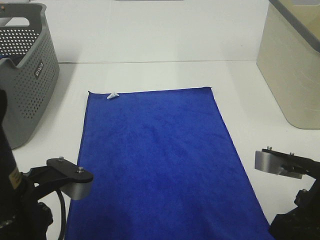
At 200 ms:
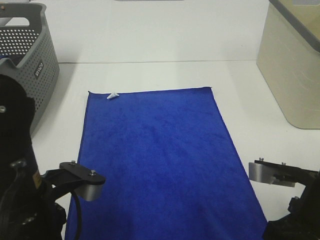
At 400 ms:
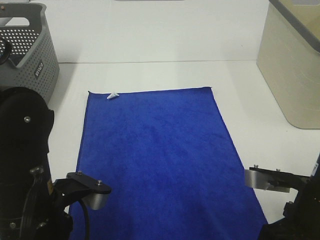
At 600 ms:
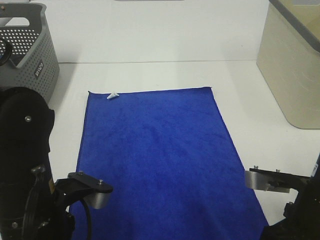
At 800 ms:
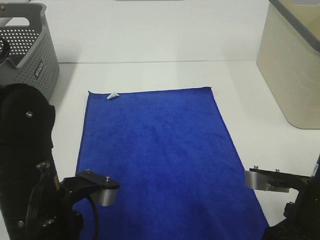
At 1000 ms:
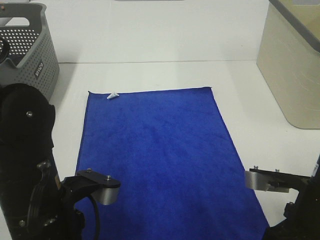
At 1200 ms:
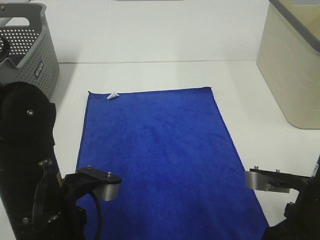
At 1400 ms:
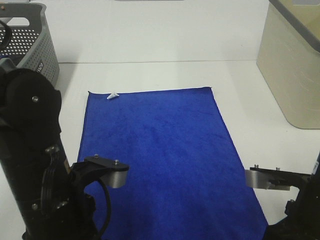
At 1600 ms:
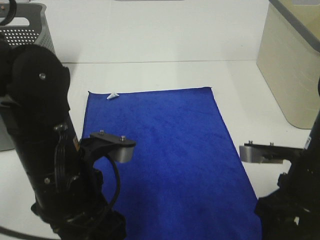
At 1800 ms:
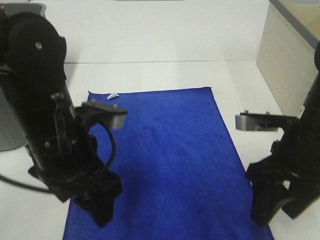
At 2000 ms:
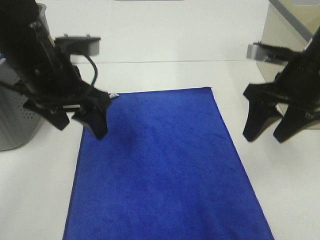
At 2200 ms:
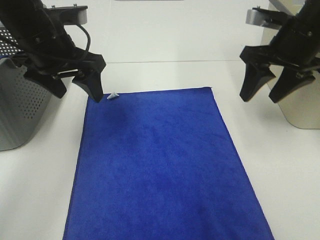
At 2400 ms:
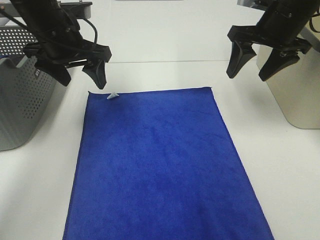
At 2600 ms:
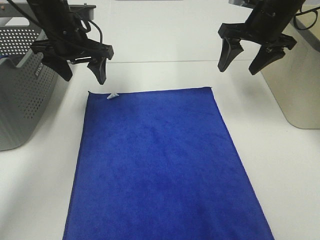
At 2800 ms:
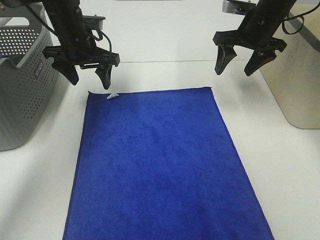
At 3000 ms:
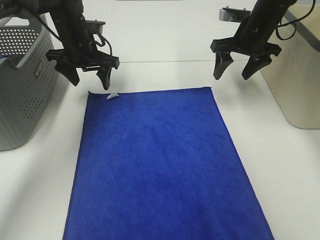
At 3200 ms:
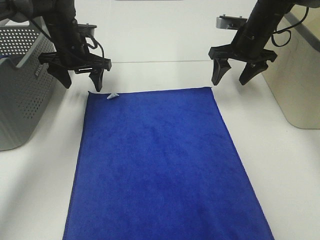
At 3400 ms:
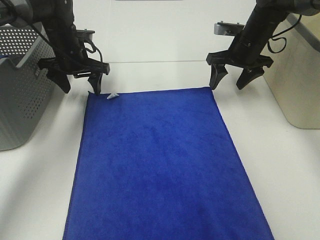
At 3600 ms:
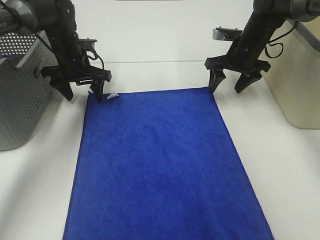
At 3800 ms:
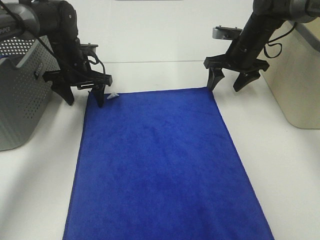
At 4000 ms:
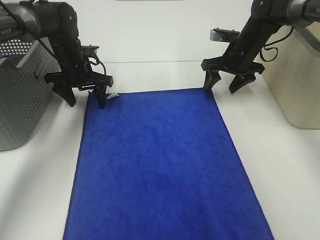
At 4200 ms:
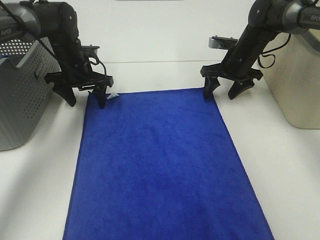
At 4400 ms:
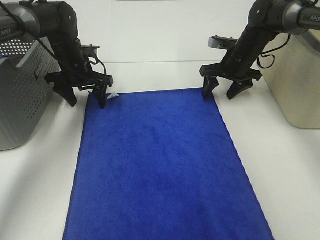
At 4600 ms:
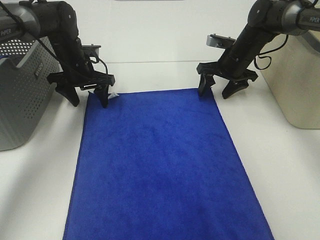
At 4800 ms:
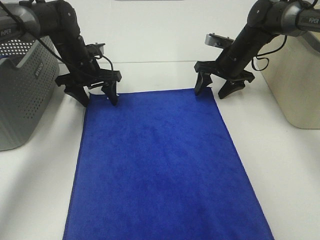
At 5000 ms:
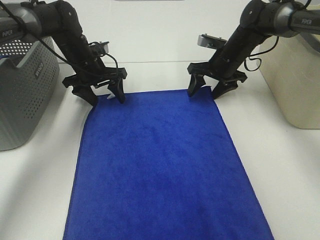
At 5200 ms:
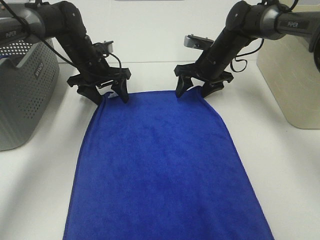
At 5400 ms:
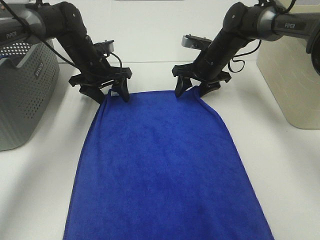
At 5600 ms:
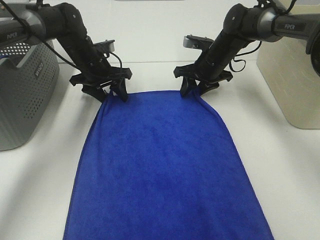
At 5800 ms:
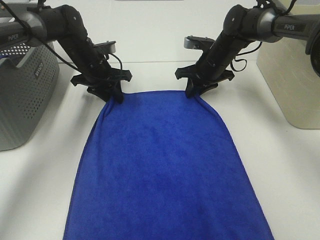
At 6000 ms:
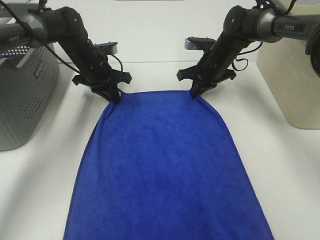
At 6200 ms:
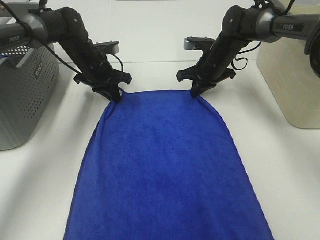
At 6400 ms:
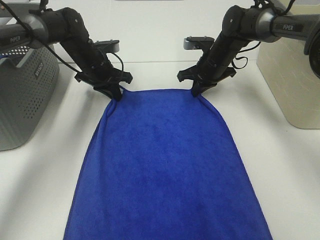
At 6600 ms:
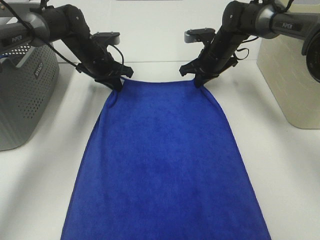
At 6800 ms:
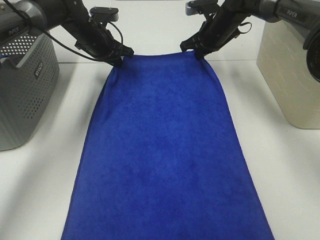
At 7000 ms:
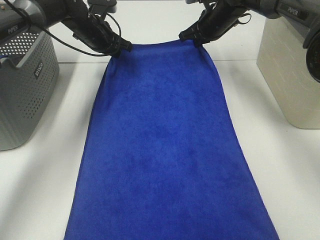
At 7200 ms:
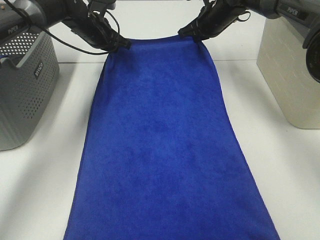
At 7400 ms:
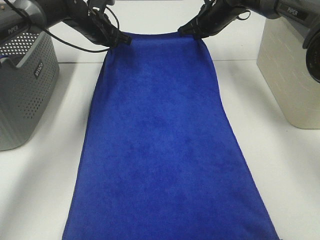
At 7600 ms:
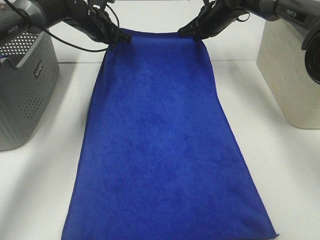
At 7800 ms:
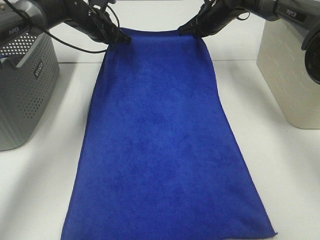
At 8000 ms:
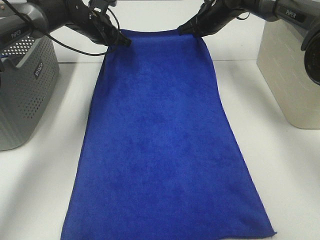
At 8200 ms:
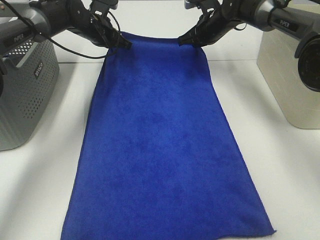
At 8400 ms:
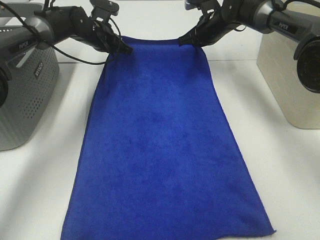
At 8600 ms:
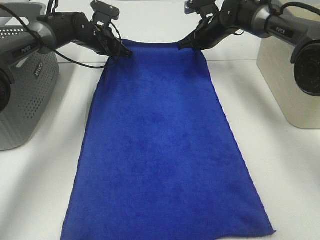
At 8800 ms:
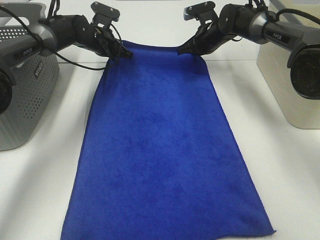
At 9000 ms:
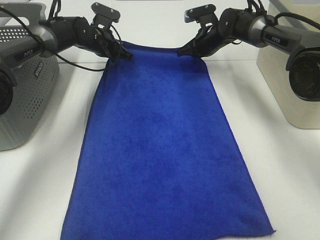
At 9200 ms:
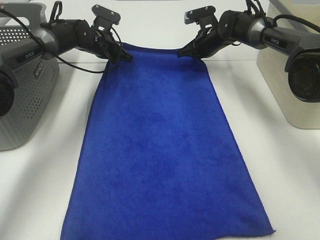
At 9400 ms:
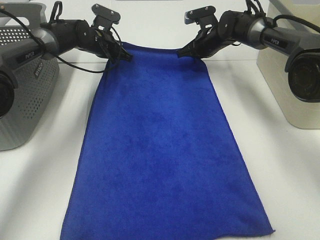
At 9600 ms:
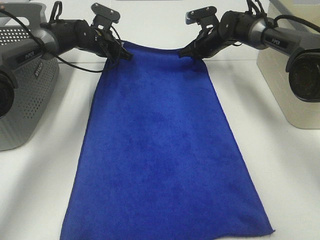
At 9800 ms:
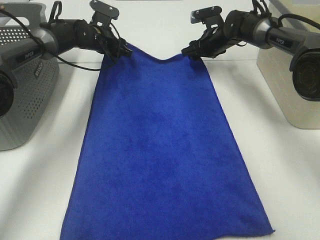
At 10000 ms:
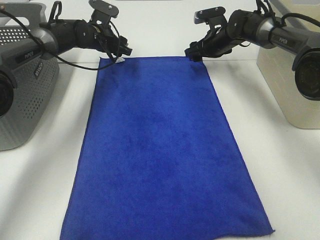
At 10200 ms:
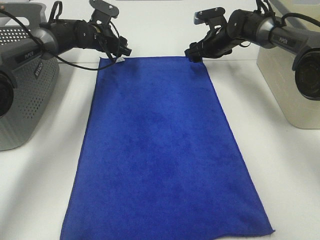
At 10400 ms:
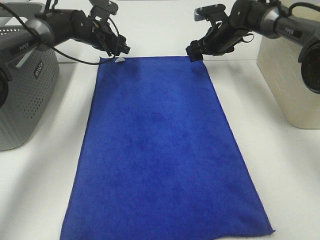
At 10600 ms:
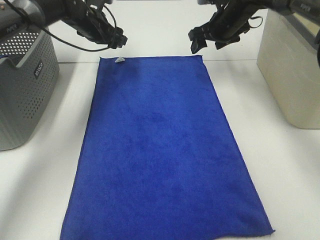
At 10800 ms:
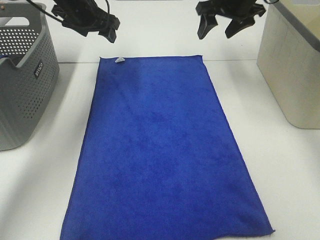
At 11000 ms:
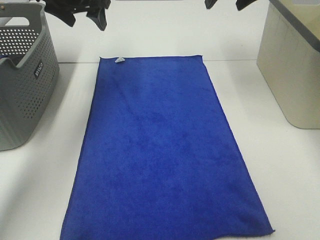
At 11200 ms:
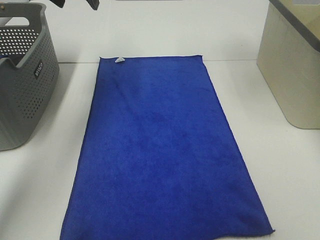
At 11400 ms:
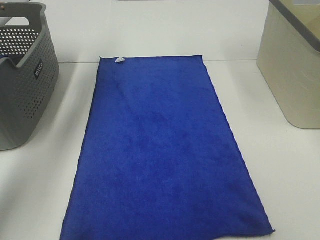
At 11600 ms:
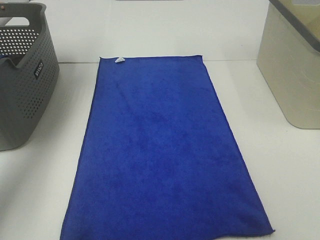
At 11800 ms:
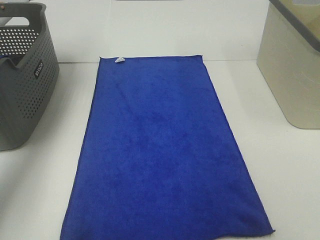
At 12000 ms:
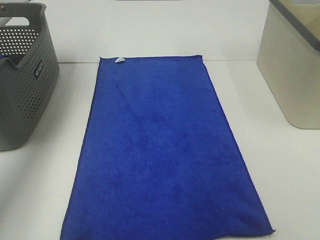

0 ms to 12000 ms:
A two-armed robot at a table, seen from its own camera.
Task of the whole recording: Remove the towel and place it.
Step, 0 ms to 3600 ms: Left hand:adjust the blue towel.
Step, 0 ms to 3600 ms: Right hand:adjust the blue towel.
0 ms to 1600 ms: The right gripper opens its fingers, while the left gripper moves some 5 cm, and opens its fingers.
1600 ms to 3000 ms: Both grippers move forward, about 30 cm.
3000 ms to 4400 ms: The grippers both shift downward by about 5 cm.
4400 ms to 6000 ms: The right gripper is displaced to the left by some 5 cm, and closes up, while the left gripper closes its fingers.
6000 ms to 7600 ms: Both grippers move upward and forward, some 10 cm.
7600 ms to 9000 ms: The grippers both shift downward by about 5 cm.
9000 ms to 10400 ms: The left gripper opens its fingers; the right gripper opens its fingers.
10400 ms to 12000 ms: The right gripper heads upward and backward, covering approximately 35 cm, while the left gripper shifts some 30 cm upward, to the left and backward.

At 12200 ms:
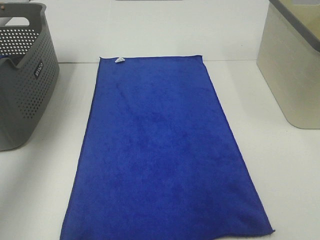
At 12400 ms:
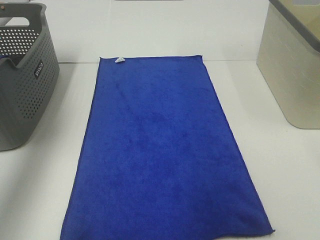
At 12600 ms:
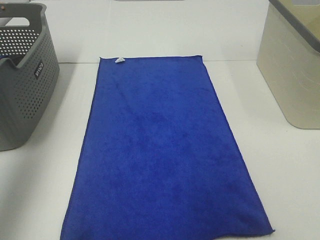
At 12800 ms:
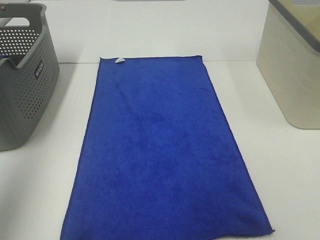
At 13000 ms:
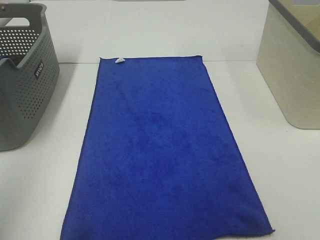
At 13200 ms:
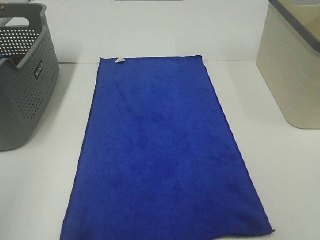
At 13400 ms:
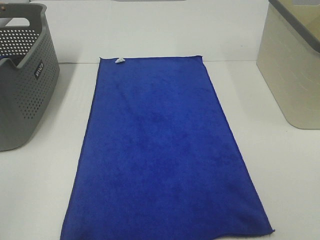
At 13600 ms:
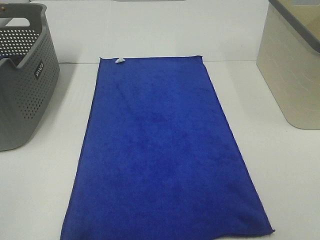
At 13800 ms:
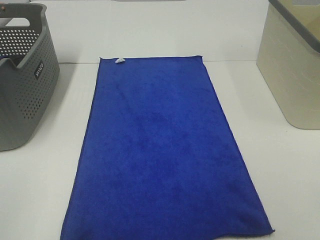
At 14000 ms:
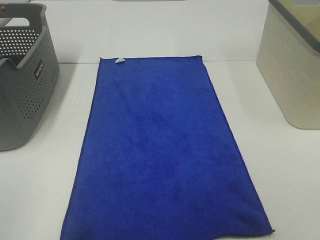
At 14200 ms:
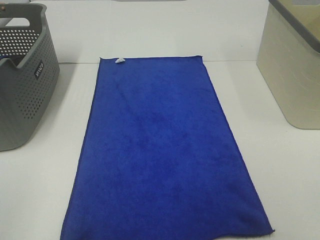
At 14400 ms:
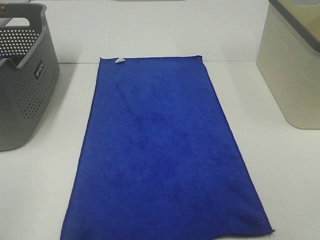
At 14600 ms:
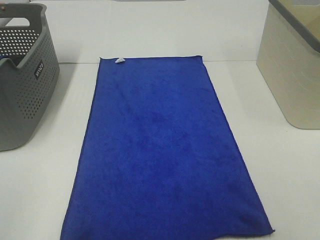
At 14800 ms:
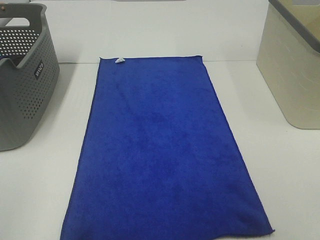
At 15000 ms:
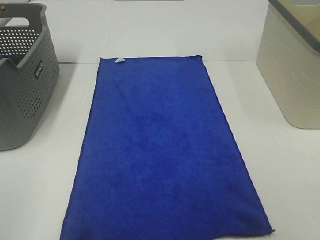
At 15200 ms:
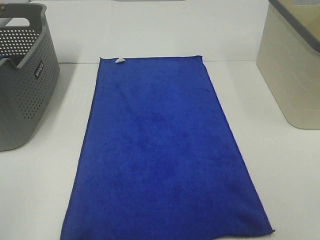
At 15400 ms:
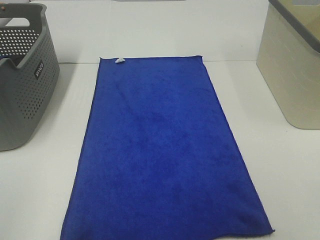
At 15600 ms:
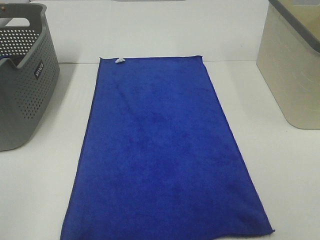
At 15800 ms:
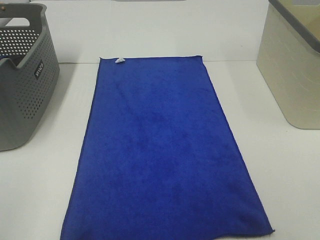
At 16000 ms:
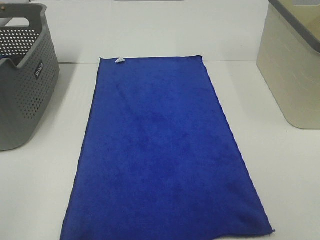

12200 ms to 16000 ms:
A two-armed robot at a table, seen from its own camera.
Task of the whole recording: Remove the towel and place it.
12200 ms to 13400 ms: The left gripper goes some 40 cm backward.
14800 ms to 16000 ms: Both grippers stay about where they are.

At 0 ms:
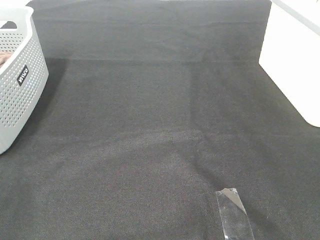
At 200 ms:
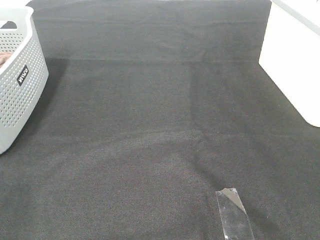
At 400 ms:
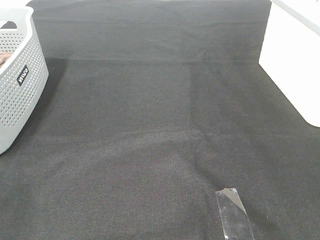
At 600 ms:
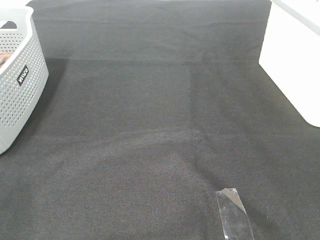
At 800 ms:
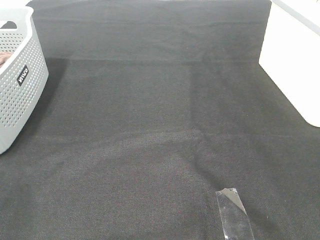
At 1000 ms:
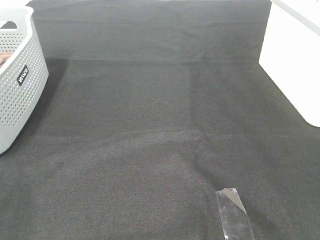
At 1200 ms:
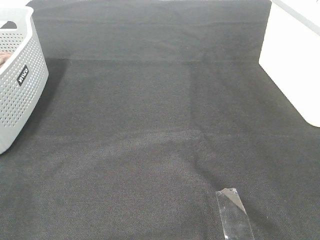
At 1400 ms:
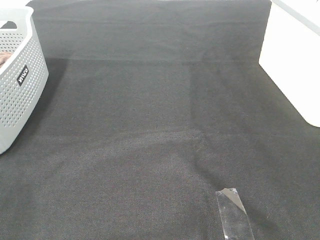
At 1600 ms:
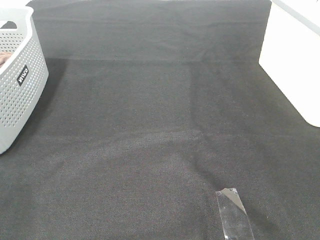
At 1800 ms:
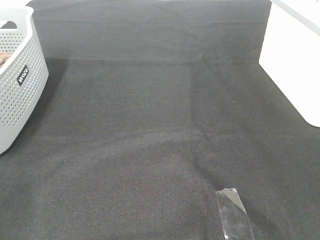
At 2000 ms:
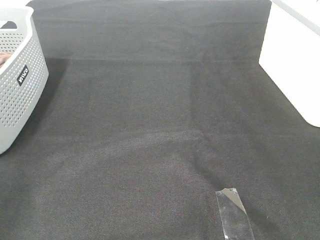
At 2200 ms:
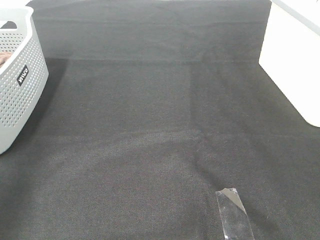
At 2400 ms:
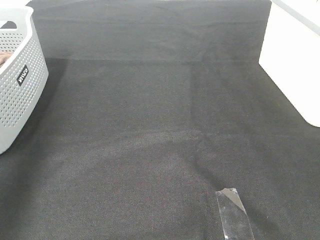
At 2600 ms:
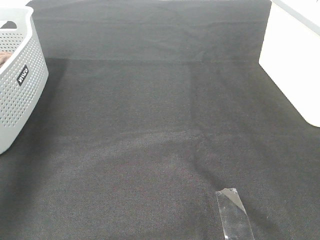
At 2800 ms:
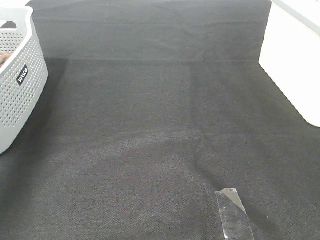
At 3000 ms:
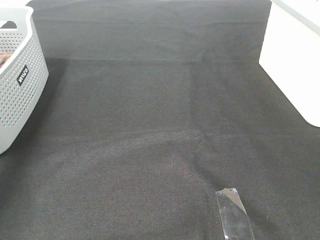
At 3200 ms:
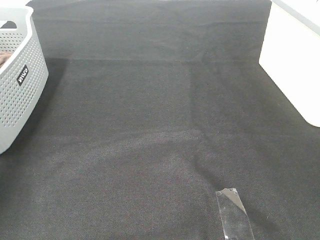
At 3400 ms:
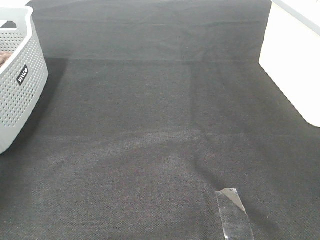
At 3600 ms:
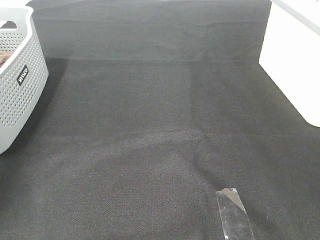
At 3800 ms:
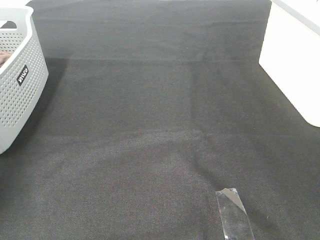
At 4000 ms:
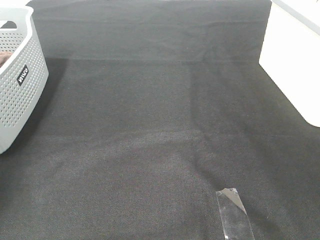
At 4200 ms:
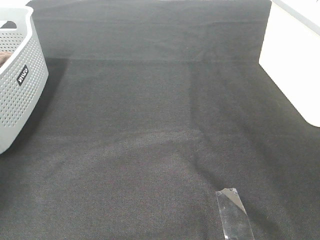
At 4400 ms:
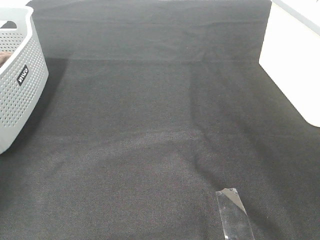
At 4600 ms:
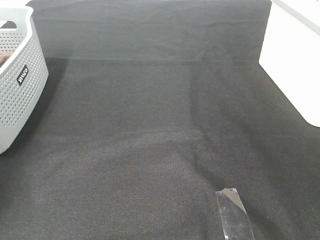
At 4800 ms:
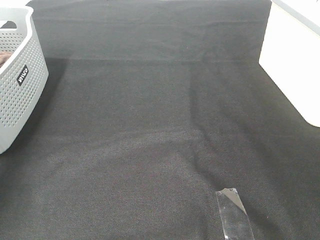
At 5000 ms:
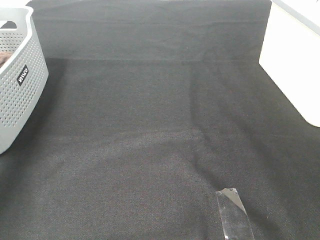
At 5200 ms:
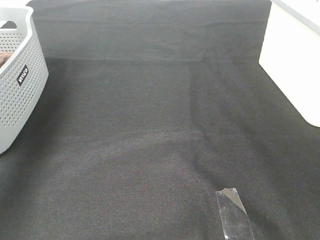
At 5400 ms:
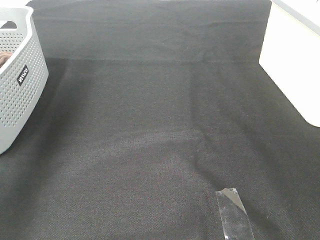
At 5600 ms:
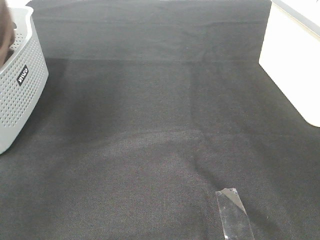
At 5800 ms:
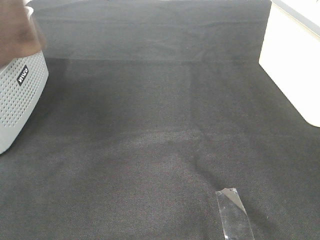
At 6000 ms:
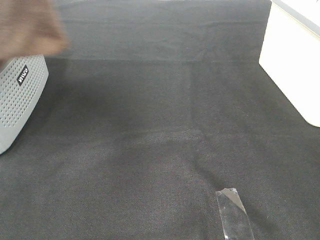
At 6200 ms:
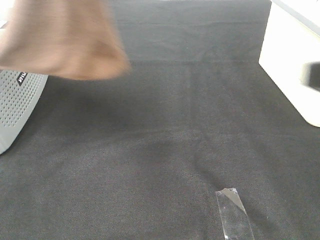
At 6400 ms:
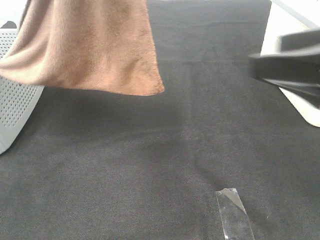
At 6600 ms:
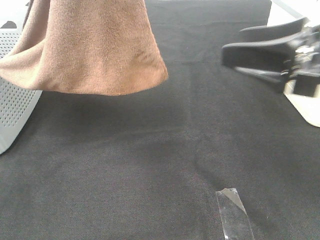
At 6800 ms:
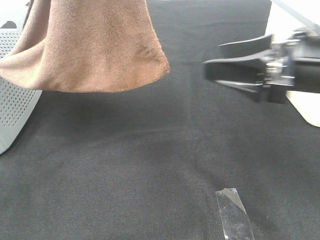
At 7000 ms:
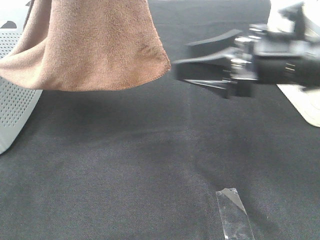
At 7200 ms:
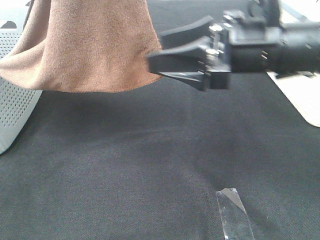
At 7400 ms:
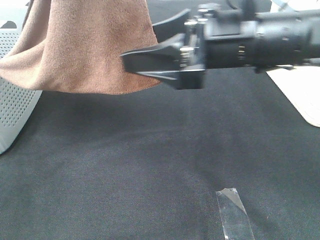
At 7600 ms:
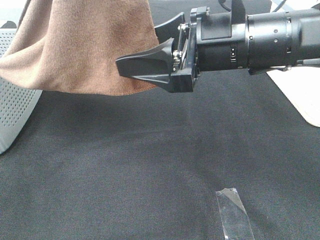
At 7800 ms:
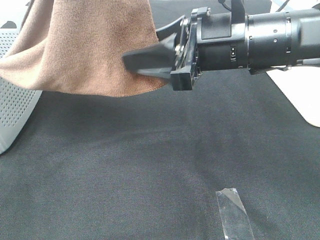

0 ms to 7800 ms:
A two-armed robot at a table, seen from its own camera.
Task of the whole recording: Remove the towel and place it.
0 ms to 1600 ms: Both grippers stay about where they are.
1600 ms to 3200 ms: The left gripper moves forward, approximately 40 cm.
4600 ms to 6200 ms: The left gripper moves to the right, upward and backward, approximately 50 cm, while the right gripper heads forward, covering some 15 cm.
6200 ms to 7800 ms: The right gripper is displaced forward, to the left and downward by approximately 20 cm, and closes.
